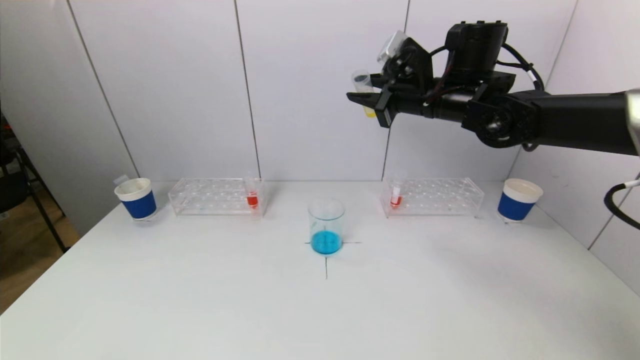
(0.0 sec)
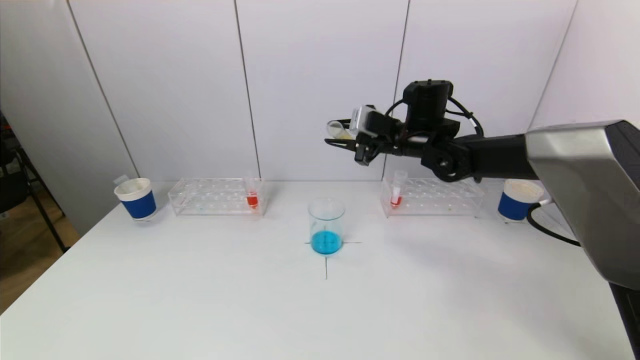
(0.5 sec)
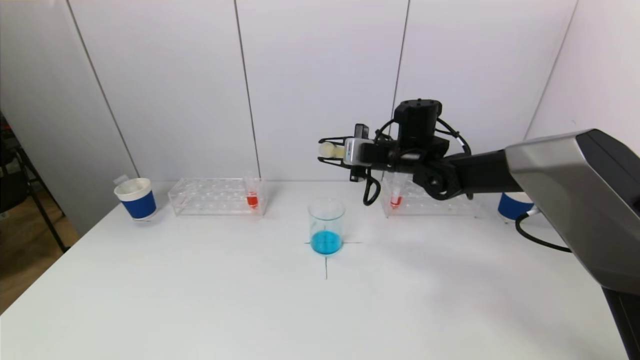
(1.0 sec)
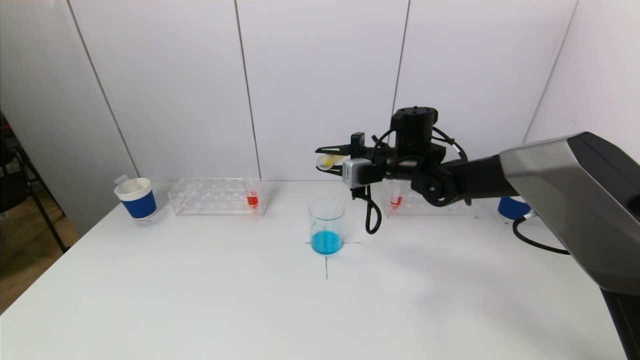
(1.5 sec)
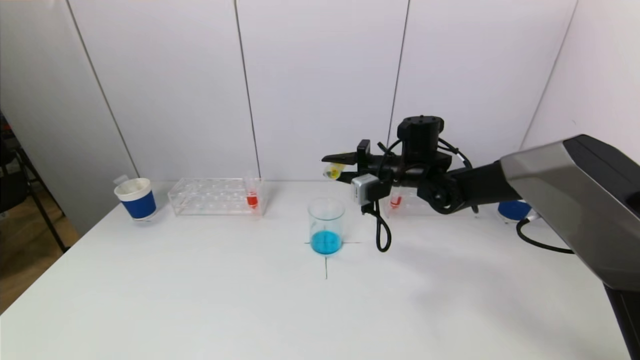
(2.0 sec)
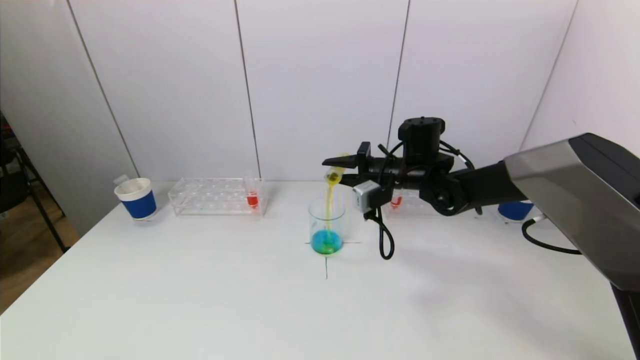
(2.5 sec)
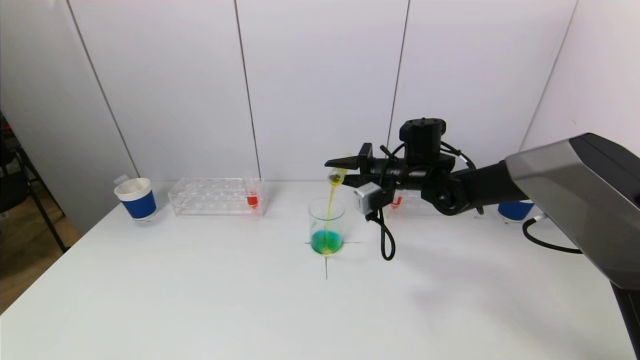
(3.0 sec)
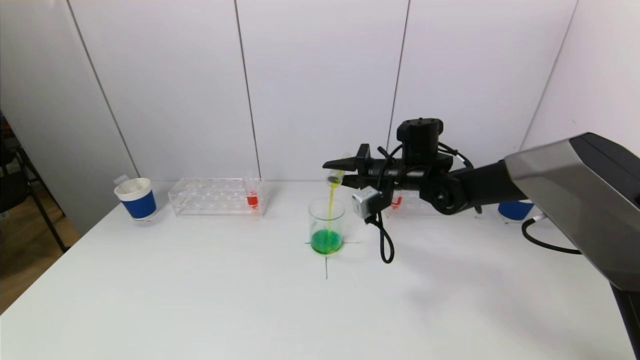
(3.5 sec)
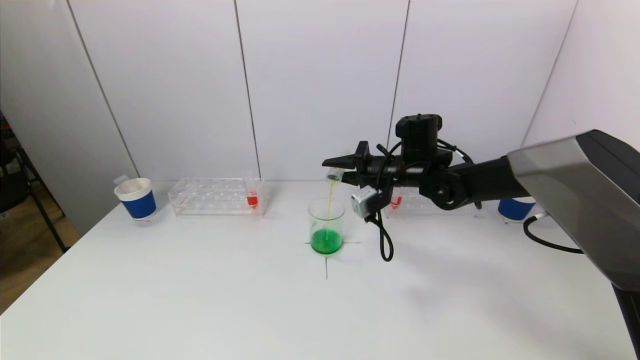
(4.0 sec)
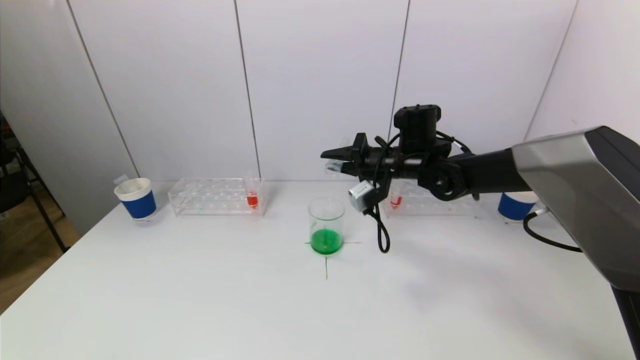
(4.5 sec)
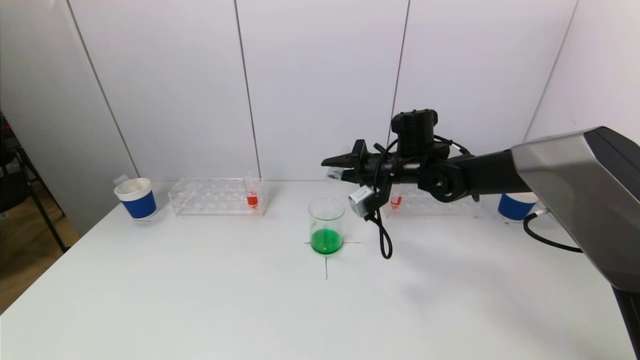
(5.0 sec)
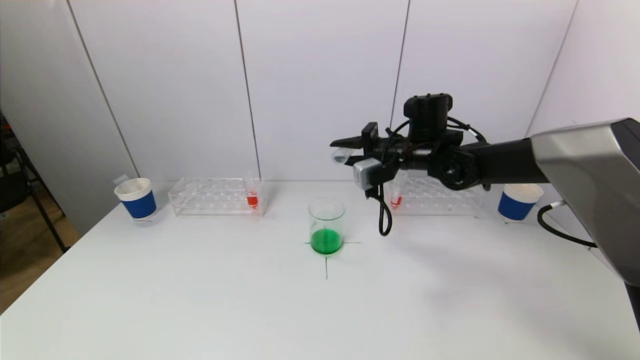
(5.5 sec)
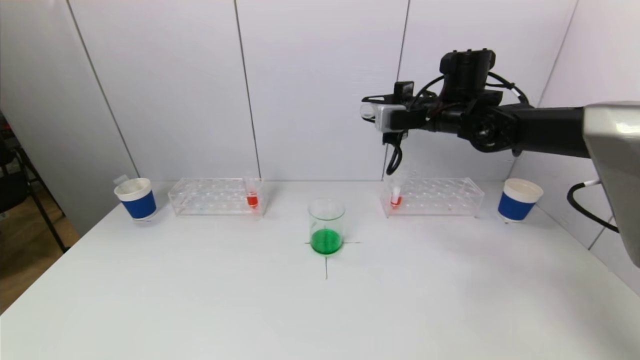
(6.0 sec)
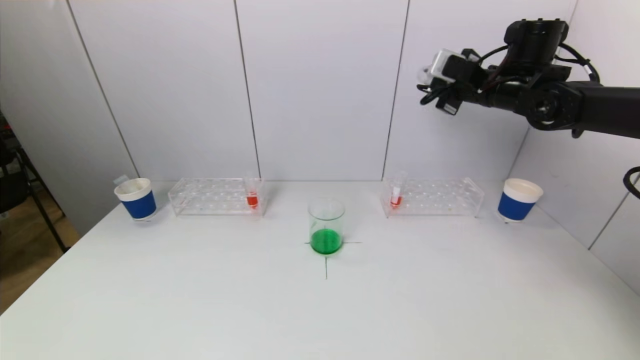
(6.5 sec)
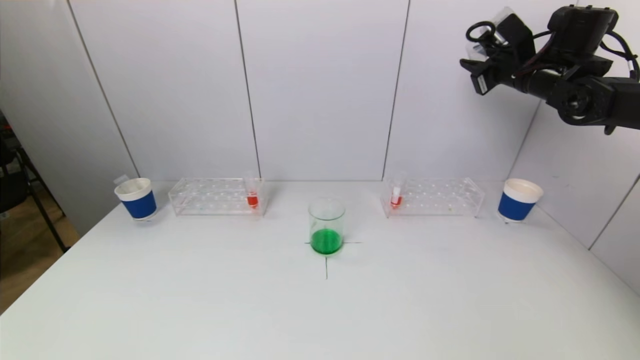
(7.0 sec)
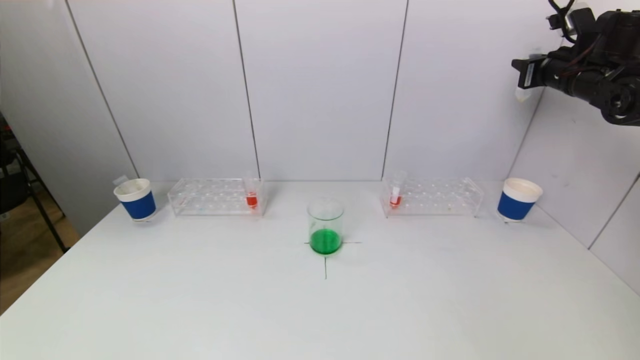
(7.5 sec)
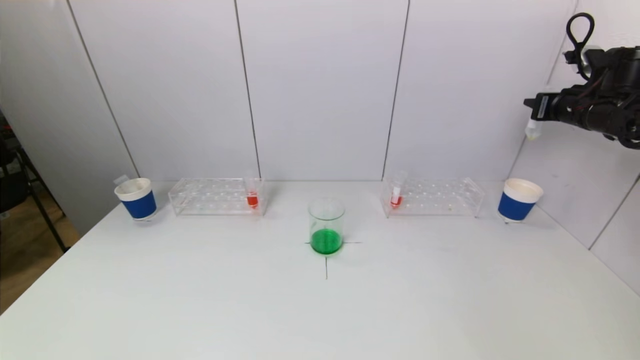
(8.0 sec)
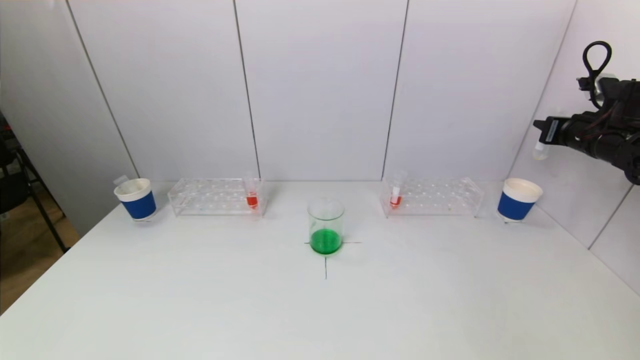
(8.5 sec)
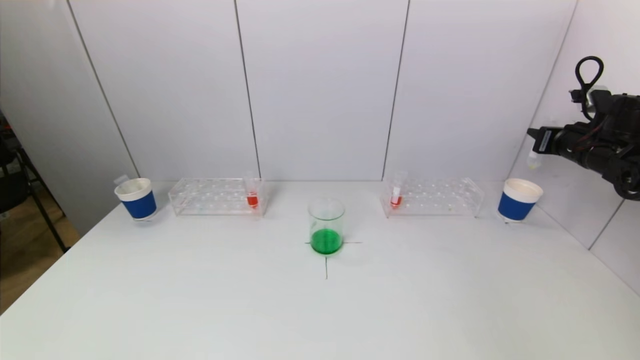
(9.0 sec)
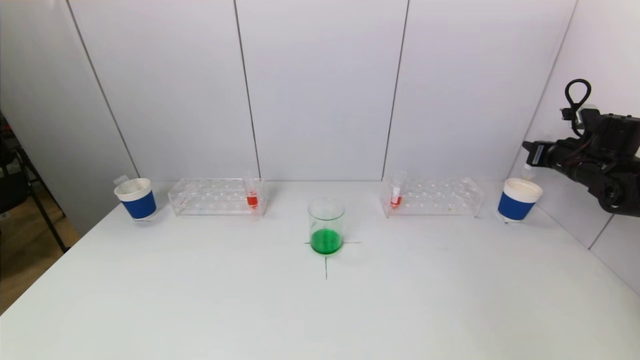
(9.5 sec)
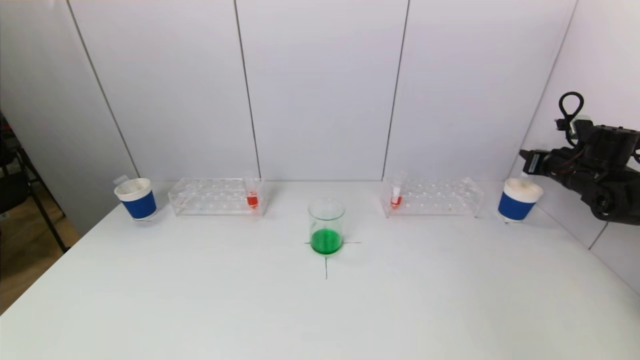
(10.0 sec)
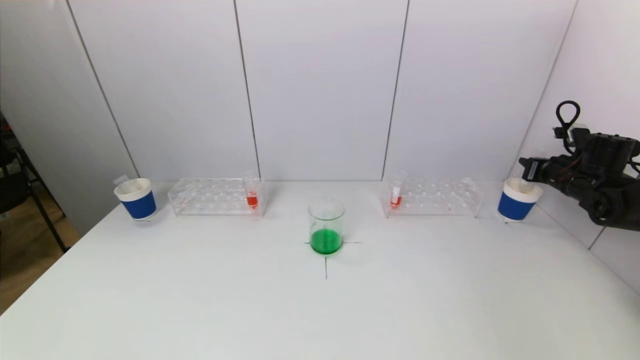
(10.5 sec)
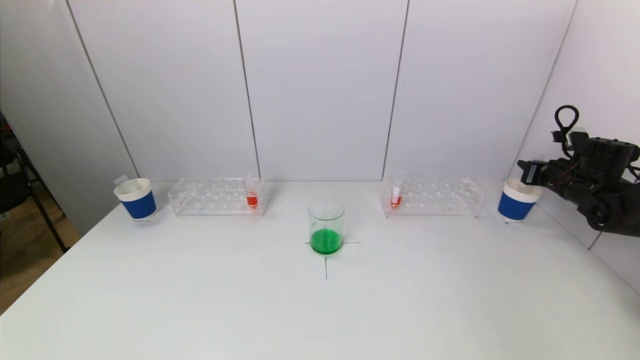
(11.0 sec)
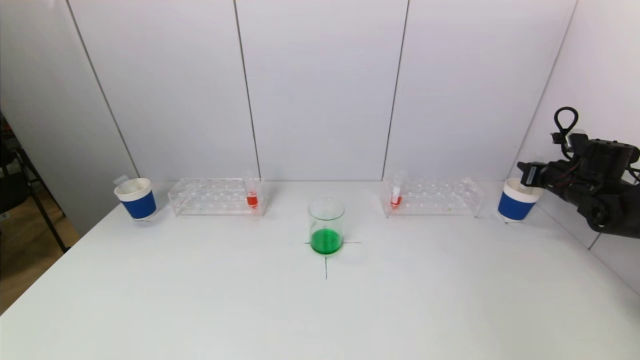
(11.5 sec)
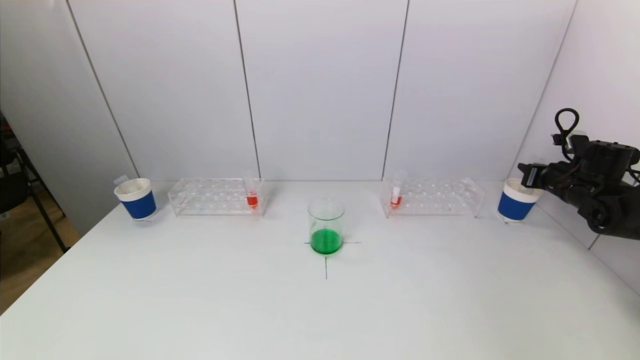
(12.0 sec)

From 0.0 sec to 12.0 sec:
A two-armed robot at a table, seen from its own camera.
Task of the whole recording: pick up a test tube with pigment on left test tube rack and a test tube with pigment on right test tube rack by grippers and pour them into the beaker.
Step, from 0.0 sec to 5.0 sec: Pour the yellow reagent into the graduated cylinder with the right gripper.
From 0.0 sec to 2.0 sec: The right gripper is displaced downward by some 15 cm.
From 2.0 sec to 4.0 sec: The grippers stay close to where they were, moving slightly.
From 4.0 sec to 6.0 sec: The right gripper shifts about 10 cm upward and to the right.
From 6.0 sec to 8.0 sec: The right gripper goes approximately 25 cm to the right.
From 8.0 sec to 10.0 sec: The right gripper is displaced downward by approximately 10 cm.
From 10.0 sec to 12.0 sec: The grippers stay close to where they were, moving slightly.

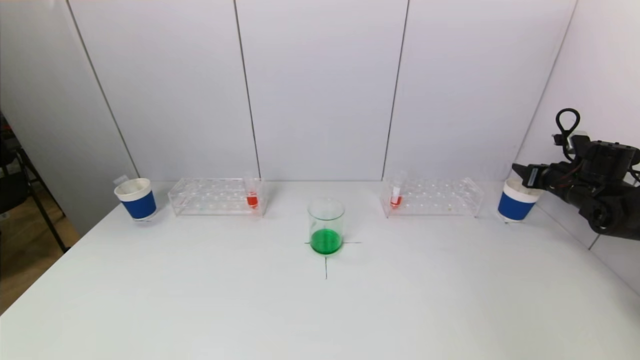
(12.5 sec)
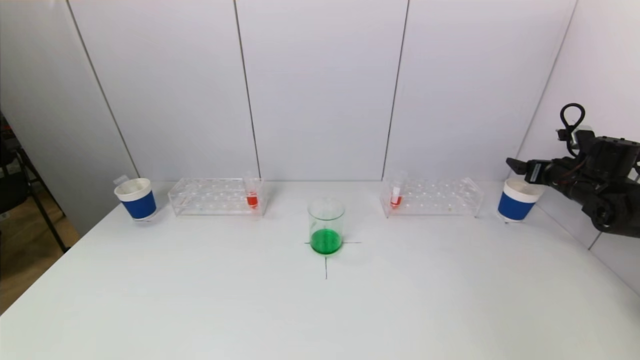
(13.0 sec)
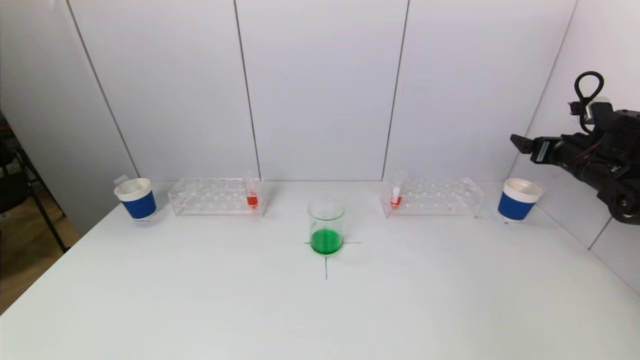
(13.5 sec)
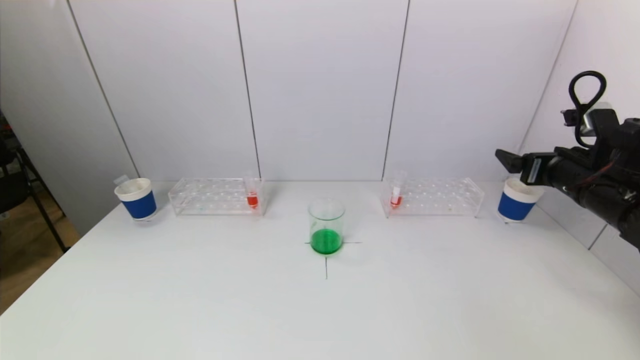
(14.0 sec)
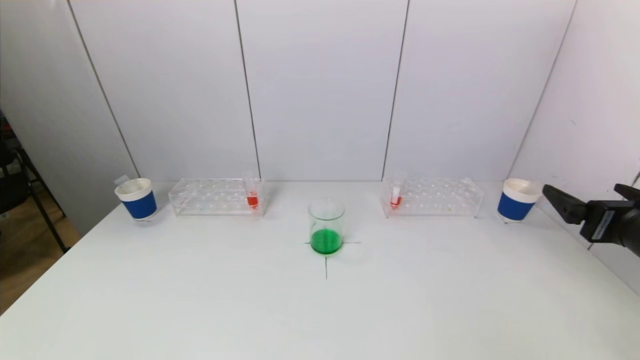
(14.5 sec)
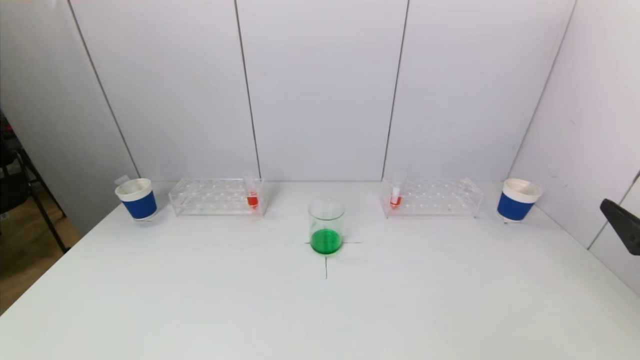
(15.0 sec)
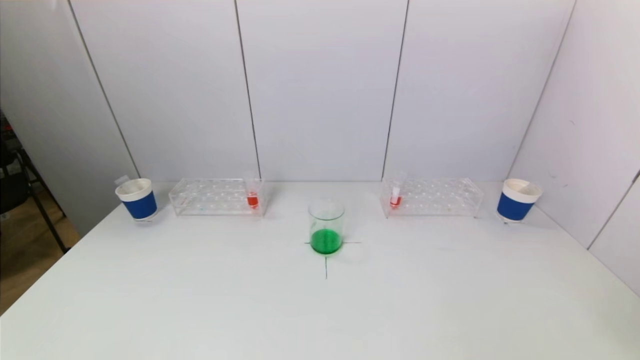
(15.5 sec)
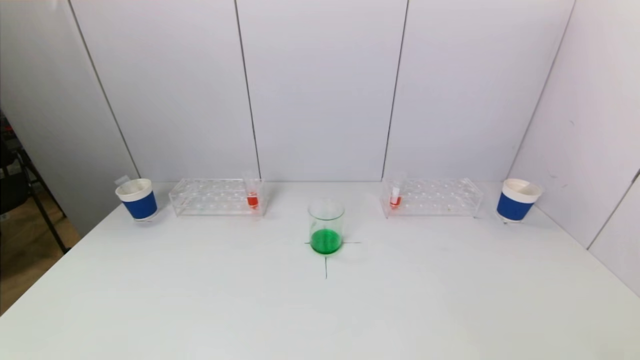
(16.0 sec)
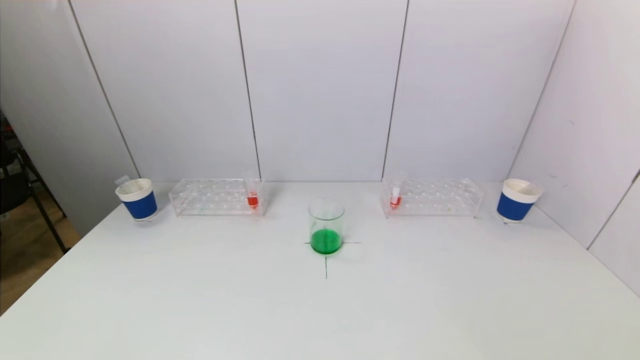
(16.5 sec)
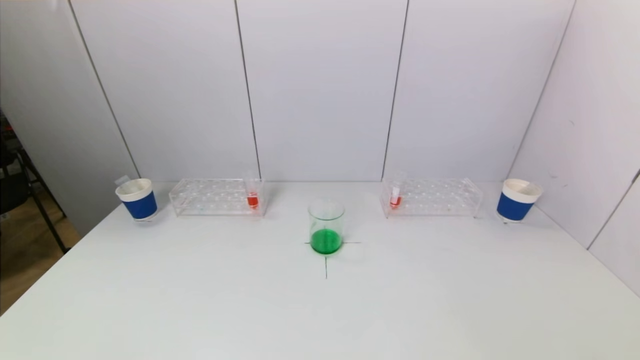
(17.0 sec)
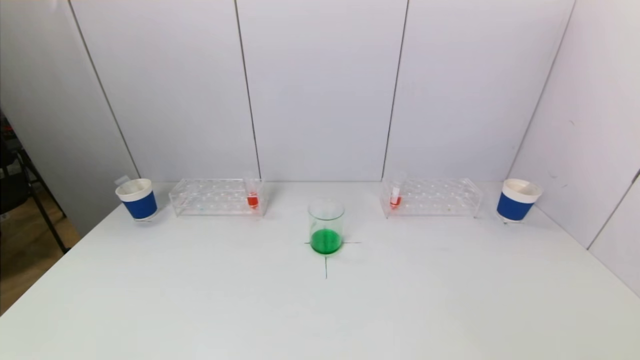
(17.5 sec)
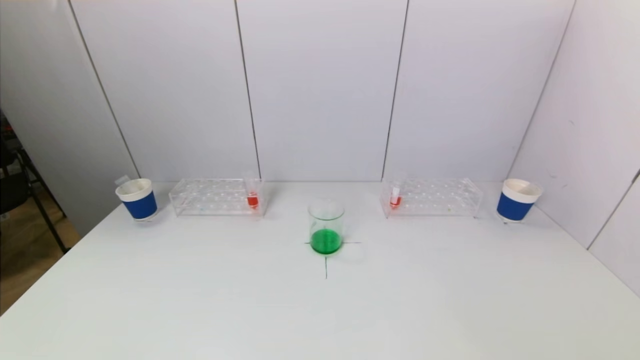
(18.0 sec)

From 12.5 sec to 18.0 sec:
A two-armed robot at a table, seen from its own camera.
Task of the whole recording: pick up a test tube with pigment on left test tube rack and a test tube with pigment on right test tube rack by grippers and pour them into the beaker.
From 12.5 sec to 14.5 sec: The right gripper shifts some 25 cm backward and to the left, and opens.
From 14.5 sec to 16.0 sec: The right gripper heads backward and downward, covering approximately 20 cm.
